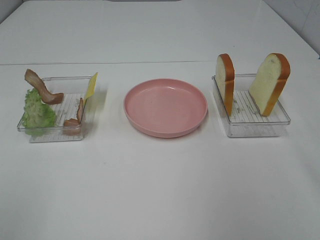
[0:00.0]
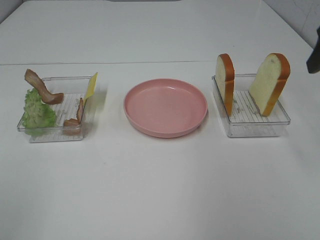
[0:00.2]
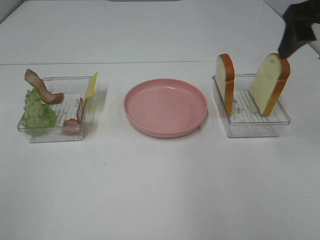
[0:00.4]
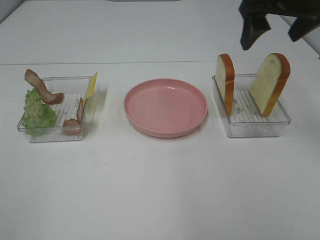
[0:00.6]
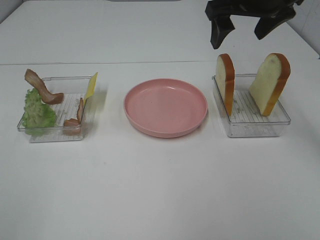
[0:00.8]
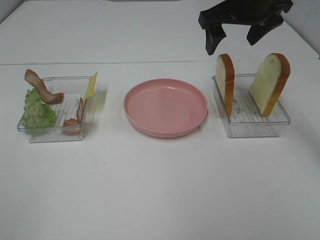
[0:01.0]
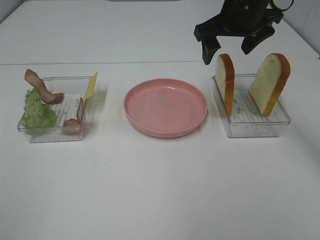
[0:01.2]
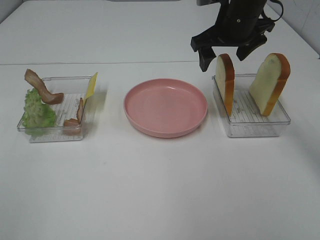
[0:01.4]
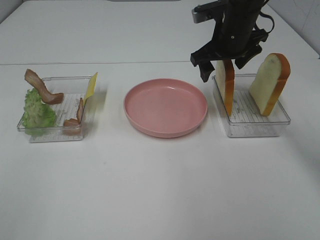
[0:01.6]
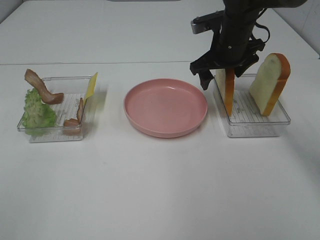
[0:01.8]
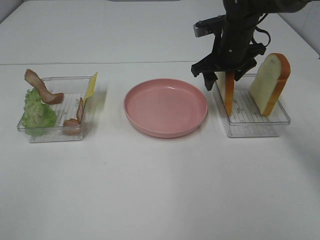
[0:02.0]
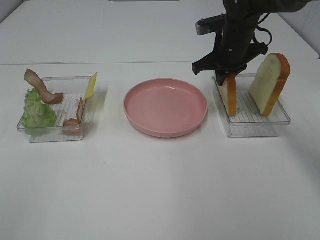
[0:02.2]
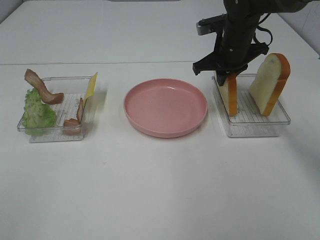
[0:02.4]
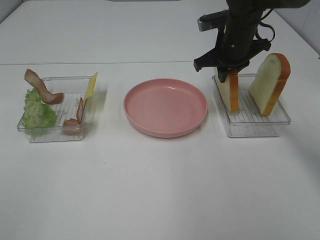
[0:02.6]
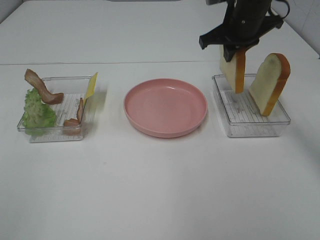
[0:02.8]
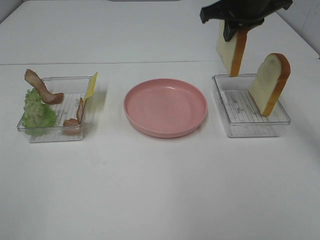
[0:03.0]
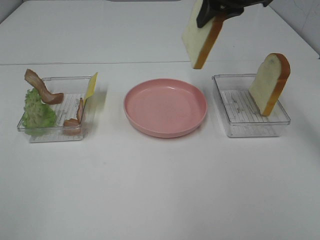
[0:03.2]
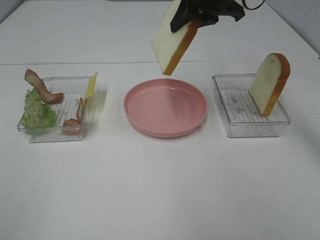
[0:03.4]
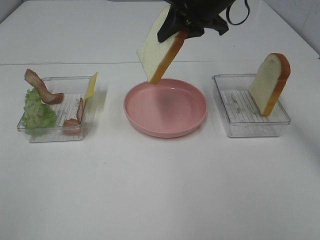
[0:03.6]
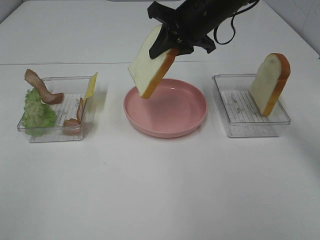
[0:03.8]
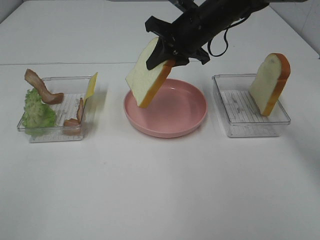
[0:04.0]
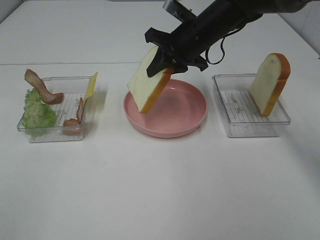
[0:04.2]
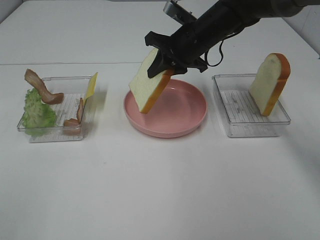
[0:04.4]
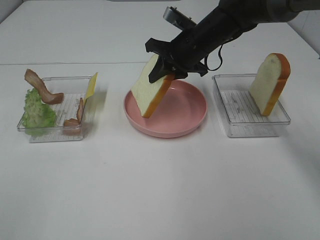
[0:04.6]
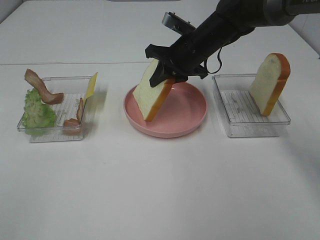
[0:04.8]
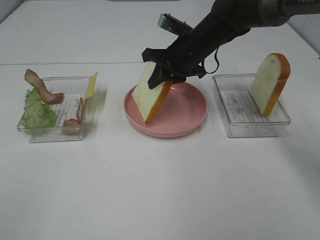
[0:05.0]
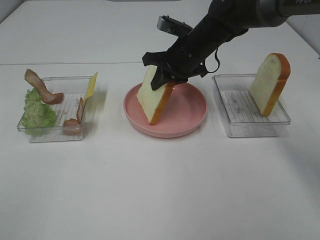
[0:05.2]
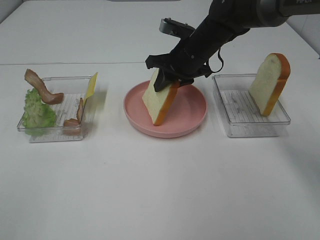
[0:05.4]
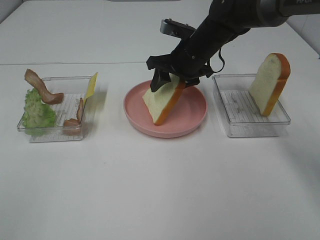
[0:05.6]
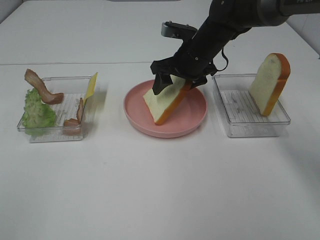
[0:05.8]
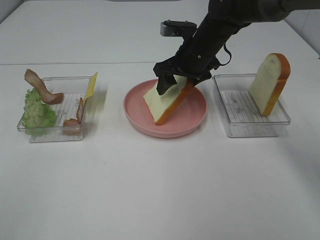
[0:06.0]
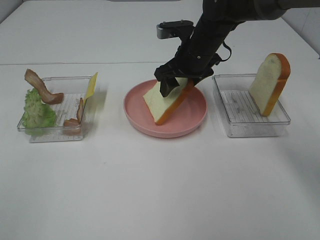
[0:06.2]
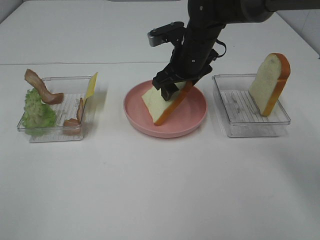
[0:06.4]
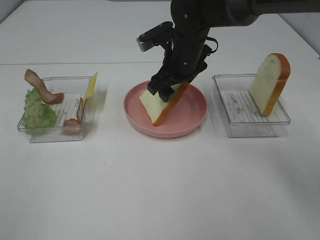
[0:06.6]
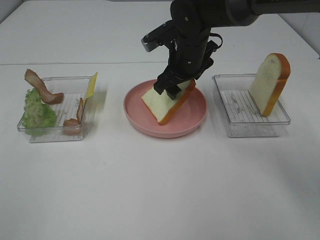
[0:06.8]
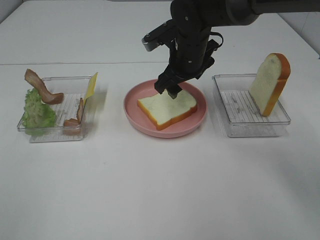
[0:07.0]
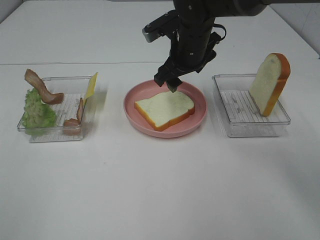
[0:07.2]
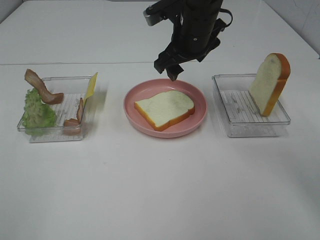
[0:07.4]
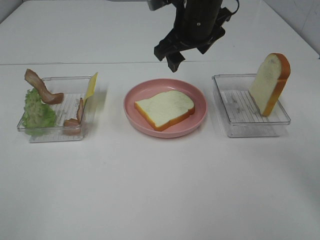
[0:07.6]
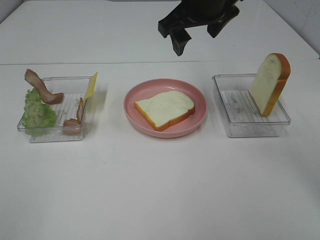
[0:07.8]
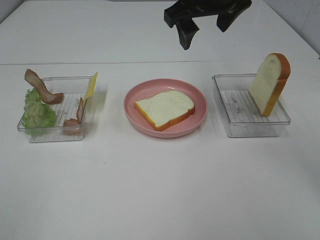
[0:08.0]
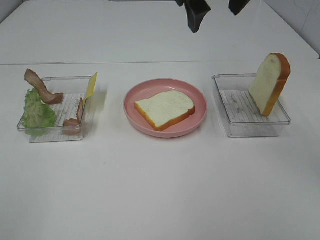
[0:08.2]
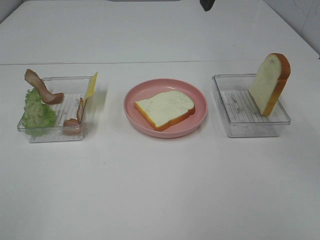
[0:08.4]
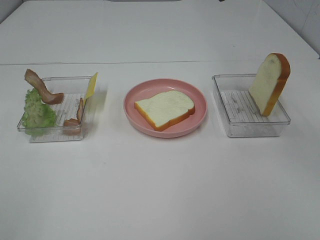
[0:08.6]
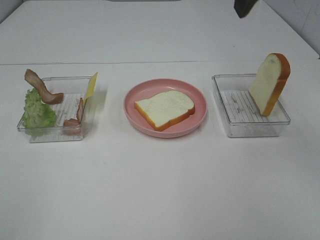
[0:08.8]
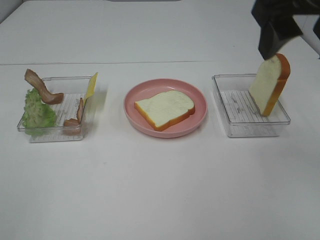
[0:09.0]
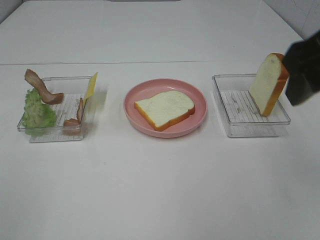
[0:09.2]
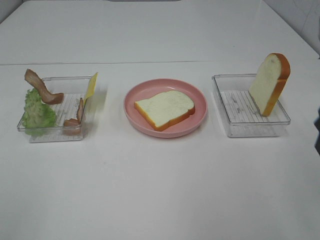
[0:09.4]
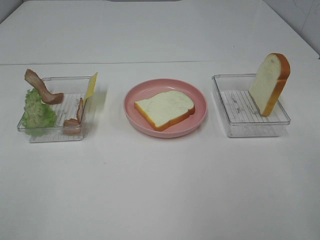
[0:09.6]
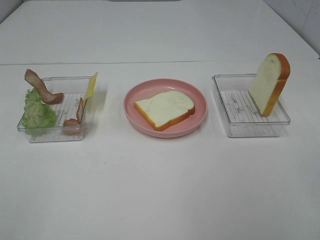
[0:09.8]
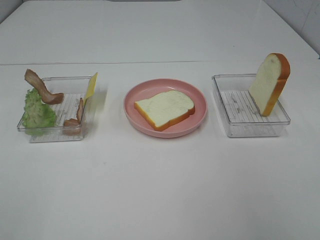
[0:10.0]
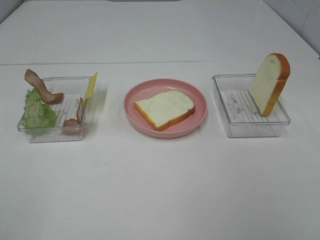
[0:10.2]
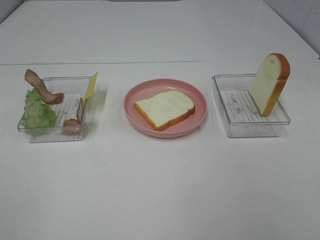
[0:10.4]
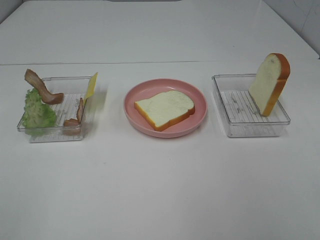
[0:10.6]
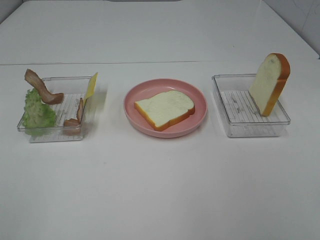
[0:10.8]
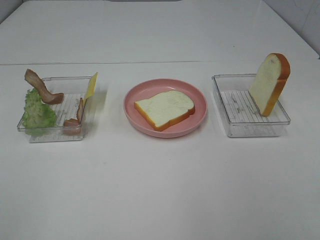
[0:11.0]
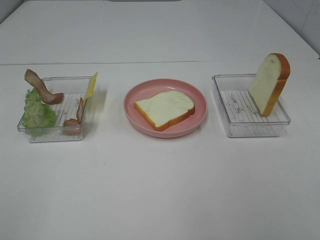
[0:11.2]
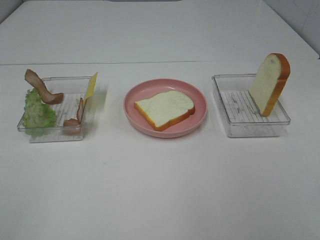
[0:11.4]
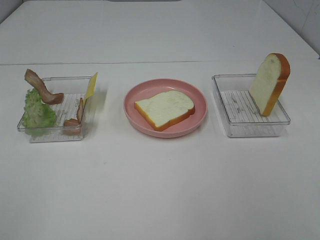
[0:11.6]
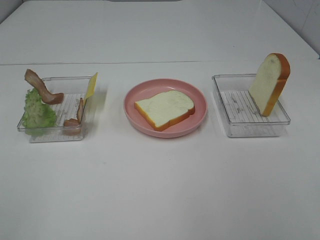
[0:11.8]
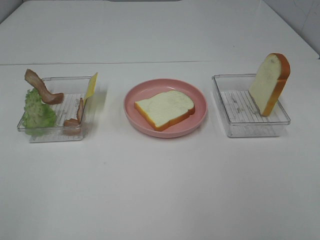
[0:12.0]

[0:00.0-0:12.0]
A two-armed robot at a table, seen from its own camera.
Task of the whole recording: Make sandwiches.
Step, 0:00.0 to 0:02.4: Right hand:grab the bread slice.
Step, 0:02.6 to 0:07.2: Right hand:place the bread slice on the plate.
0:00.0 to 0:01.6: The right gripper moves forward, to the left and downward, approximately 30 cm.
0:01.6 to 0:03.0: The right gripper moves upward, some 10 cm, and closes up.
0:03.0 to 0:04.4: The right gripper heads downward and to the left, covering approximately 15 cm.
0:04.4 to 0:06.0: The right gripper opens its fingers.
0:06.0 to 0:07.6: The right gripper goes some 10 cm upward.
0:07.6 to 0:09.0: The right gripper moves backward, upward and to the right, some 20 cm.
0:09.0 to 0:10.4: The right gripper travels backward, to the right and downward by about 25 cm.

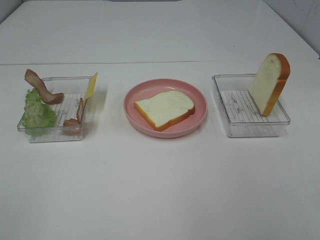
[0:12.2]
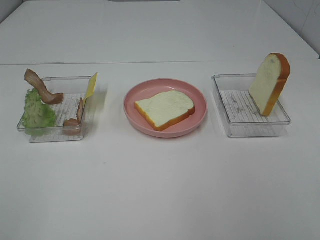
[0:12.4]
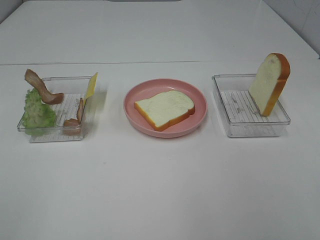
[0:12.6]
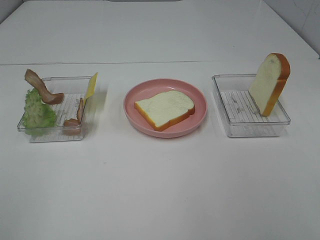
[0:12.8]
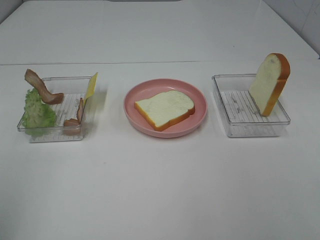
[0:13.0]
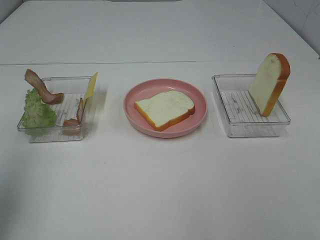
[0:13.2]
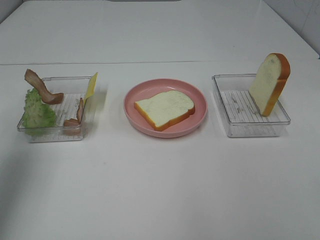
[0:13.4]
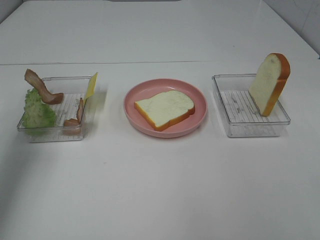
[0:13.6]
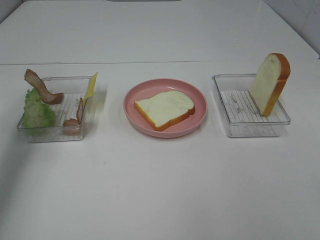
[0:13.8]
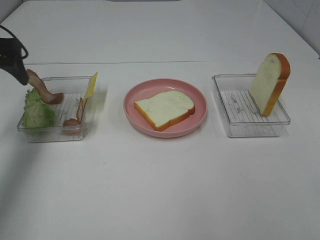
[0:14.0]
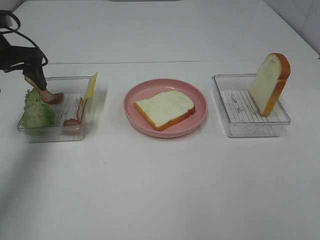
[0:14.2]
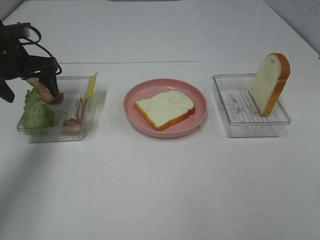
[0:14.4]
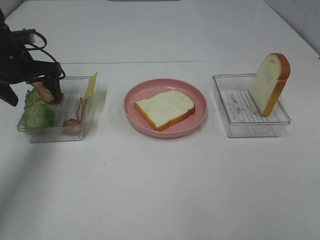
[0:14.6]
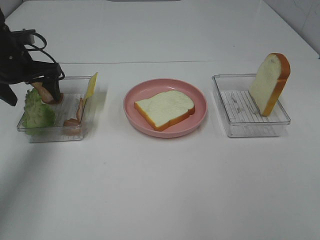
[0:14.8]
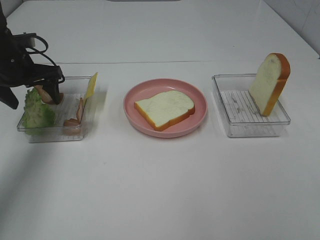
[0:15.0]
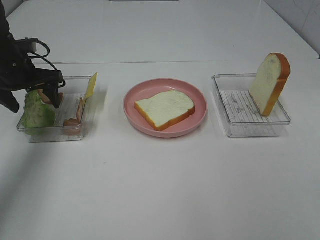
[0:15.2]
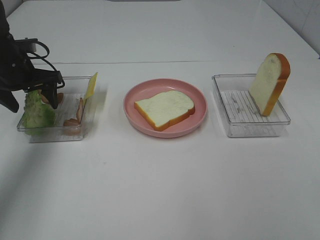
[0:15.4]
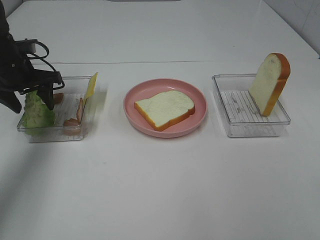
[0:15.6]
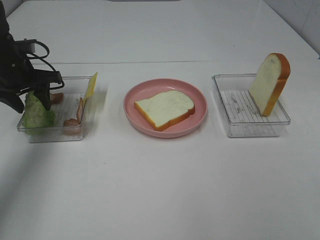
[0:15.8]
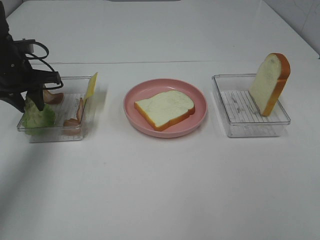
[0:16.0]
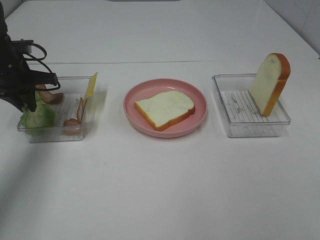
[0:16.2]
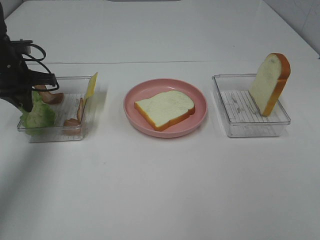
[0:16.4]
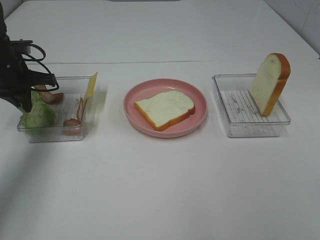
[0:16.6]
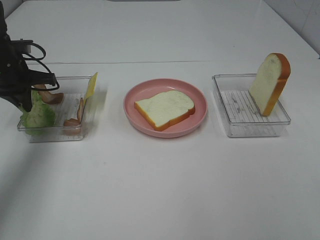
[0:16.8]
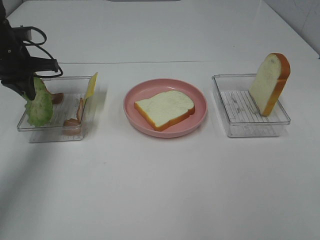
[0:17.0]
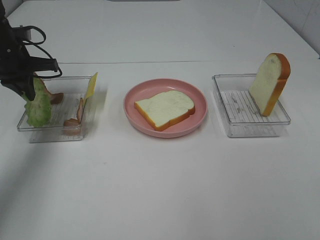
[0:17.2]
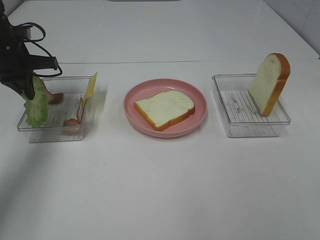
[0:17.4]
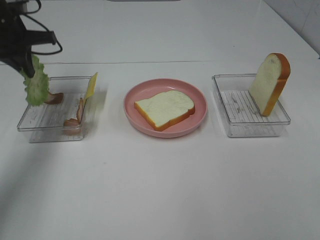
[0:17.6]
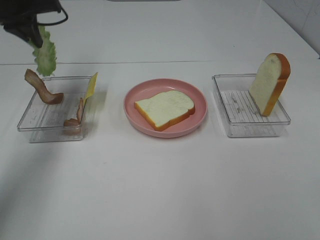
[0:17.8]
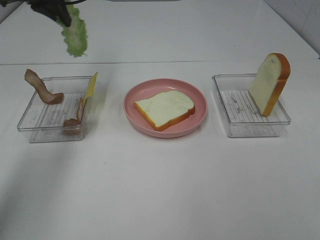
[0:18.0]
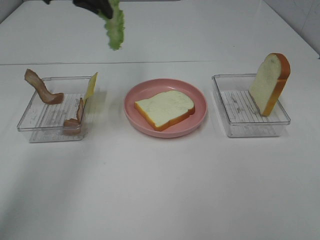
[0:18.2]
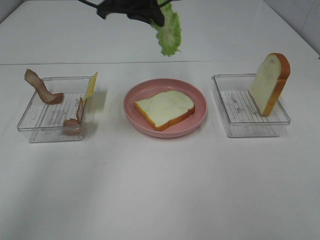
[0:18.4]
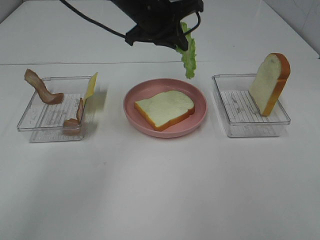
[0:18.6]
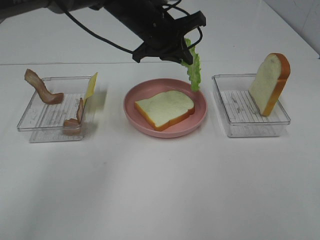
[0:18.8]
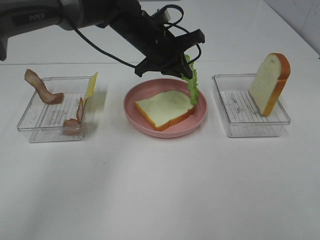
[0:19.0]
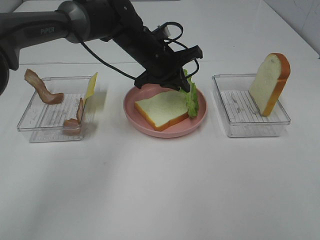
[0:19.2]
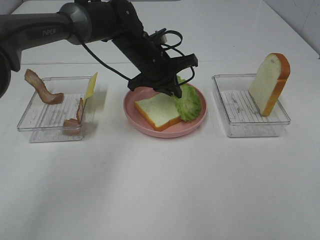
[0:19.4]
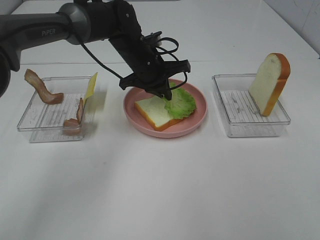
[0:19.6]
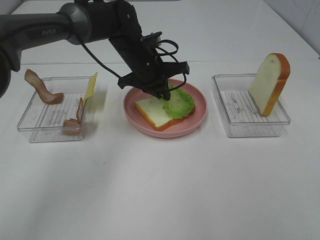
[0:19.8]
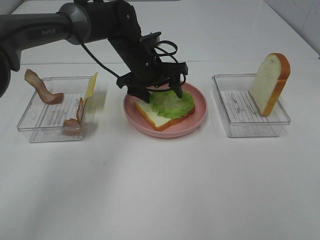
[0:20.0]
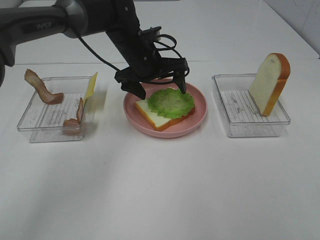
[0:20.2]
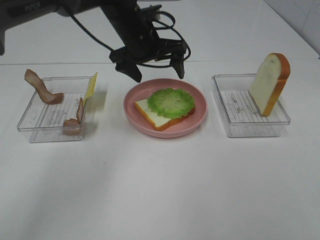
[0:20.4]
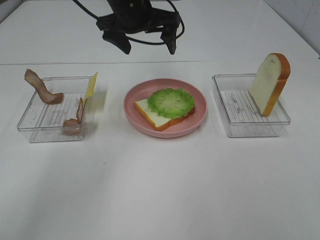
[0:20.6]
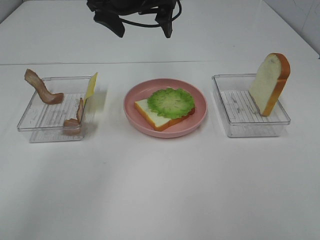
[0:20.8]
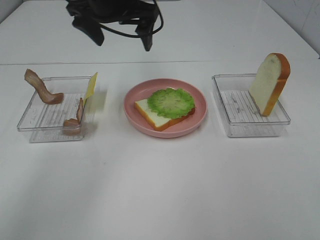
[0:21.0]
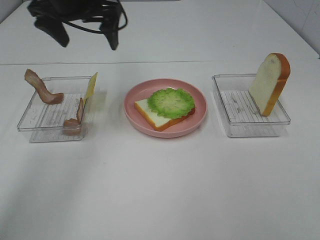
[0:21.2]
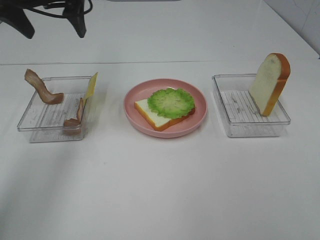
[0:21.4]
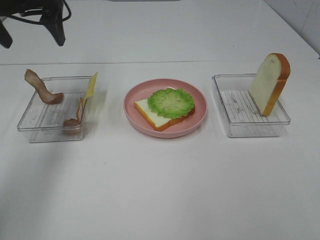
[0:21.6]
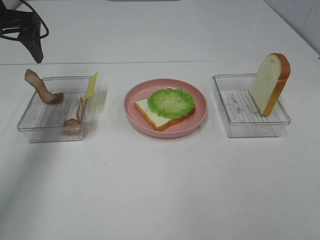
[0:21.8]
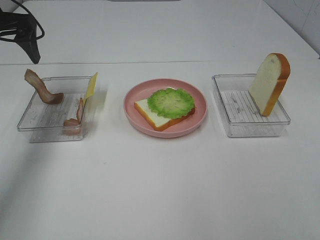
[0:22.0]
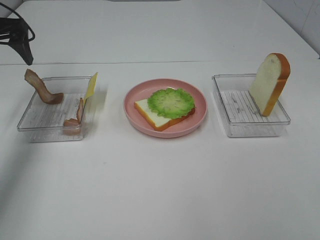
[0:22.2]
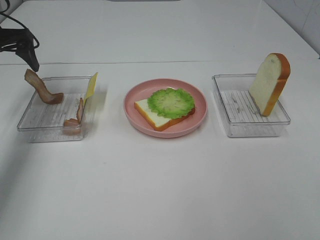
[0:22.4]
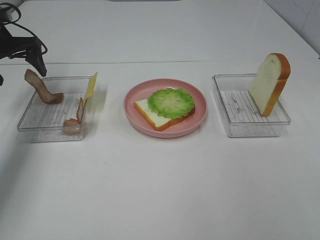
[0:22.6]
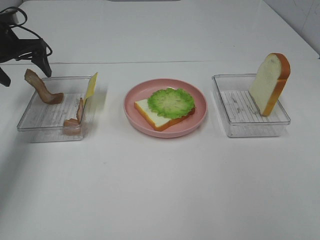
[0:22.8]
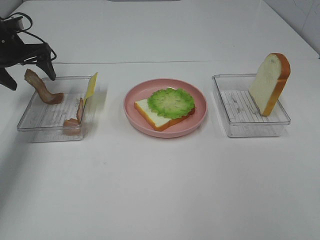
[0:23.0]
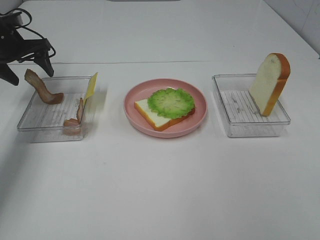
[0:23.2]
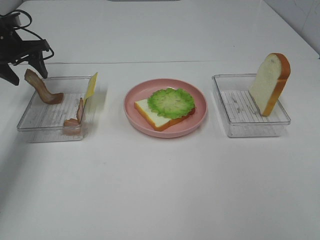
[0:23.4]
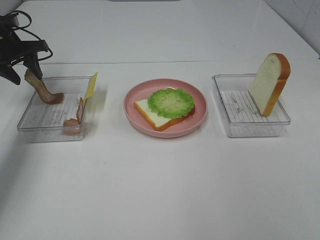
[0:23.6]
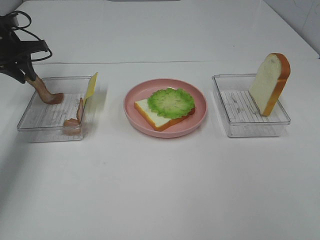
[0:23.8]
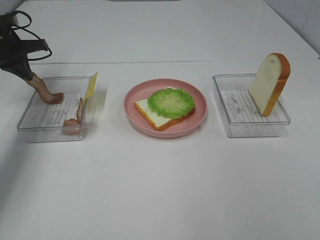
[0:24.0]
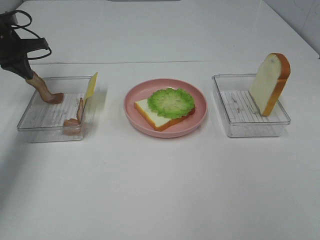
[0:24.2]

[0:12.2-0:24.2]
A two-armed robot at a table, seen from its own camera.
Task of the whole recording: Make sandwiches.
Step, 0:12.2 to 0:17.2: Left hand:grab the lettuce slice.
Step, 0:17.4 to 0:20.4: Left hand:place the lettuce slice on the bread slice.
Step, 0:20.6 to 0:24.2: Left hand:grab the bacon.
0:12.2 to 0:13.8: The left gripper shifts some 35 cm forward.
0:13.8 to 0:15.2: The left gripper shifts about 15 cm downward, forward and to the right.
0:15.2 to 0:16.6: The left gripper closes.
0:16.6 to 0:18.2: The left gripper shifts approximately 25 cm upward and to the right.
0:18.2 to 0:19.8: The left gripper is displaced downward and to the right by about 20 cm.
0:19.8 to 0:21.2: The left gripper goes roughly 20 cm upward and to the left, and opens.
0:21.2 to 0:22.6: The left gripper heads to the left and downward, covering roughly 20 cm.
0:22.6 to 0:24.2: The left gripper closes.
